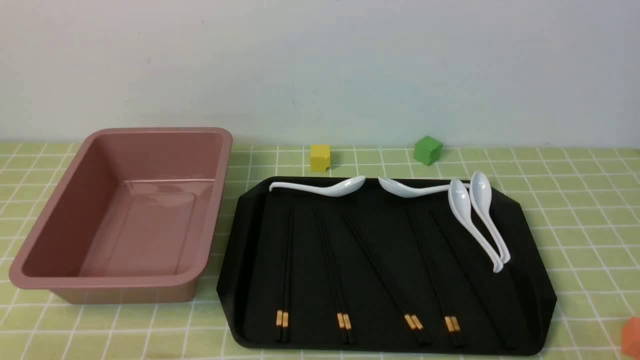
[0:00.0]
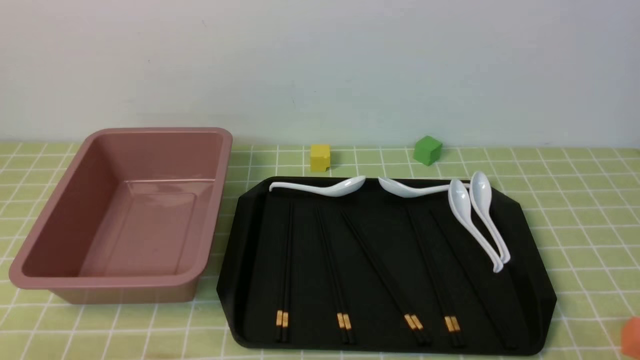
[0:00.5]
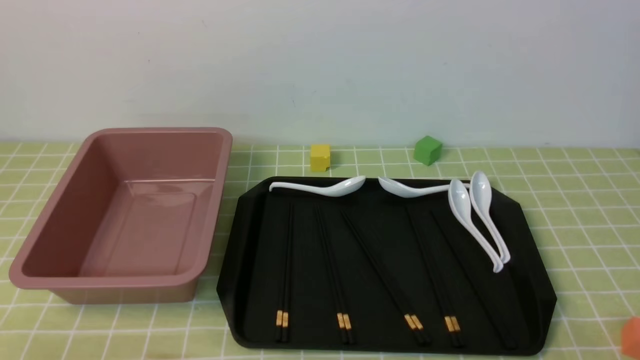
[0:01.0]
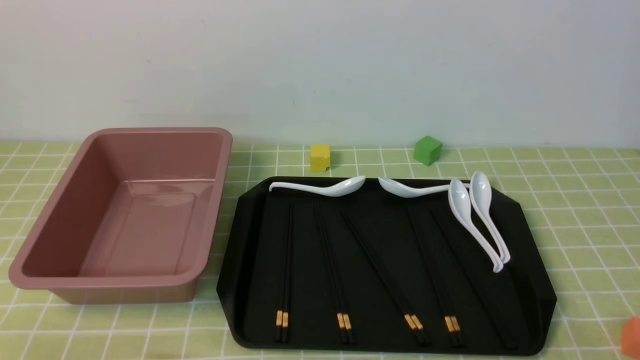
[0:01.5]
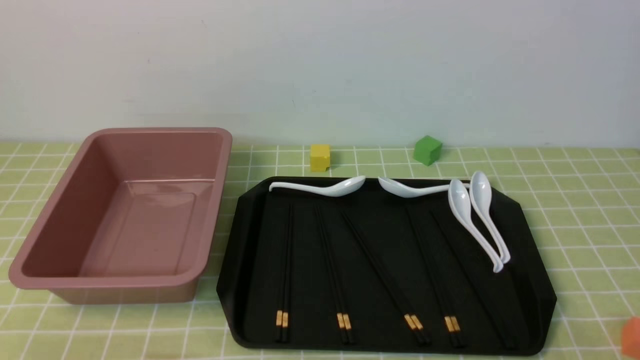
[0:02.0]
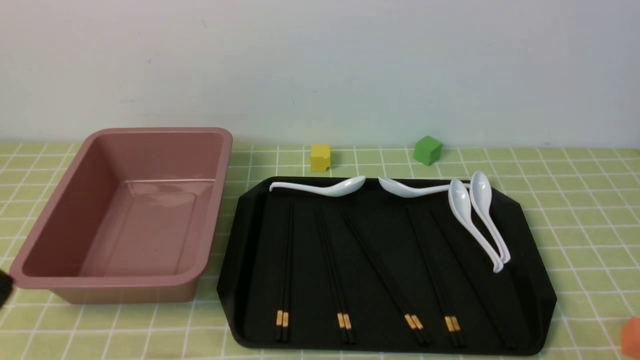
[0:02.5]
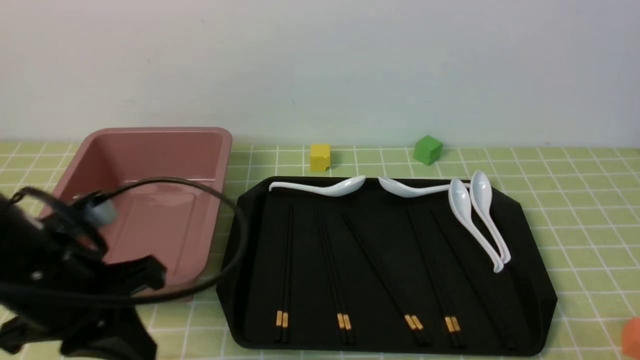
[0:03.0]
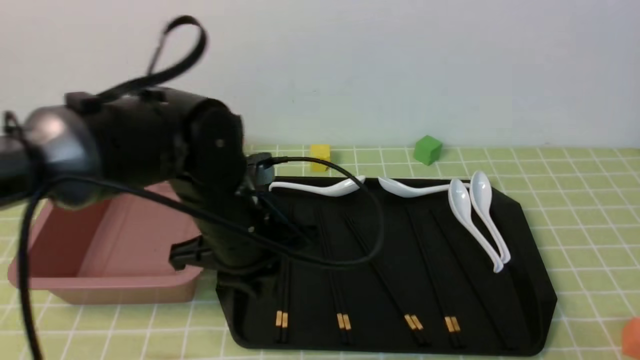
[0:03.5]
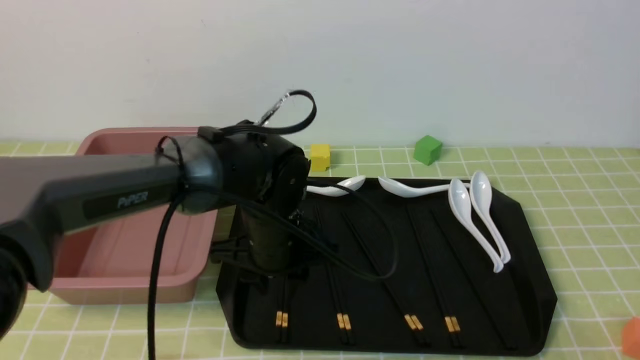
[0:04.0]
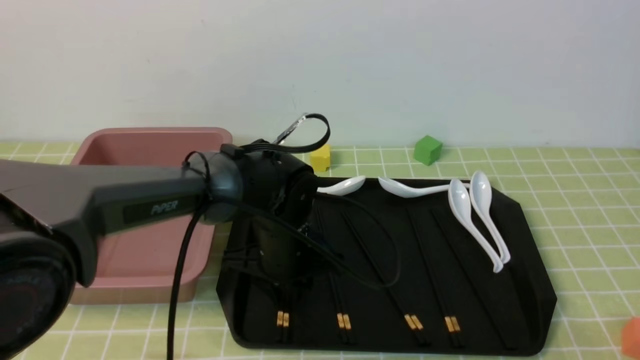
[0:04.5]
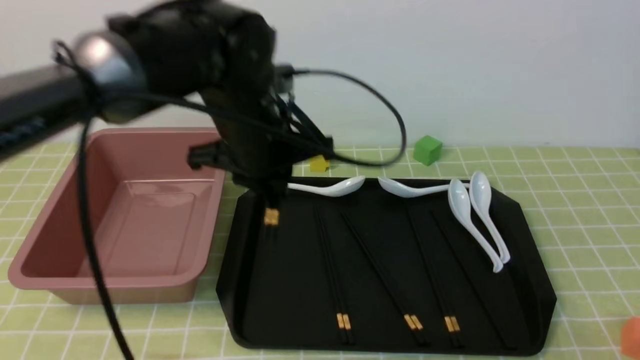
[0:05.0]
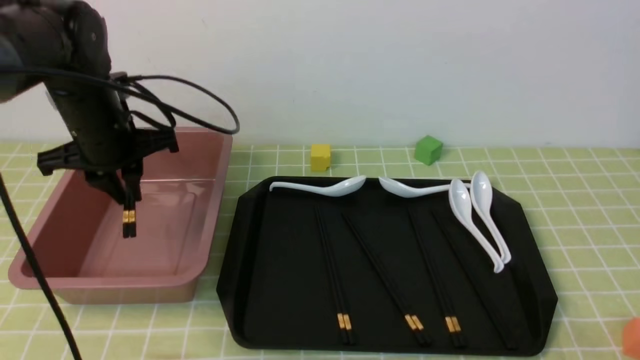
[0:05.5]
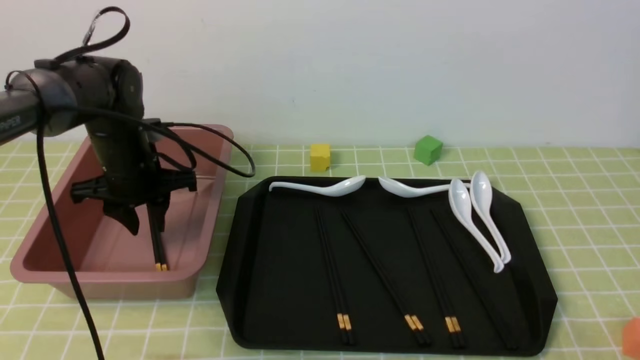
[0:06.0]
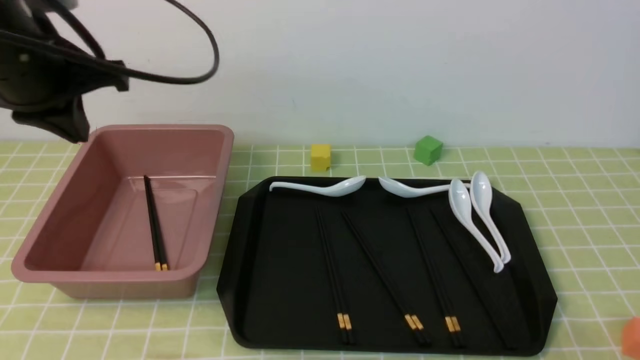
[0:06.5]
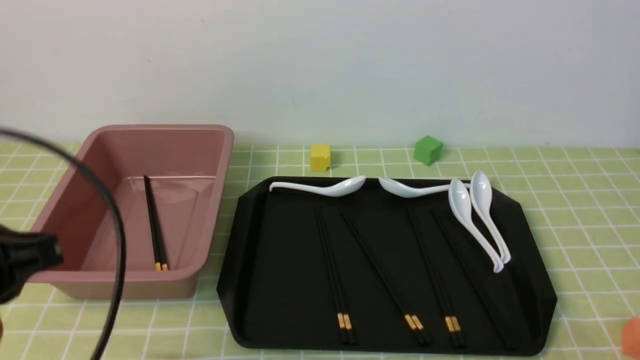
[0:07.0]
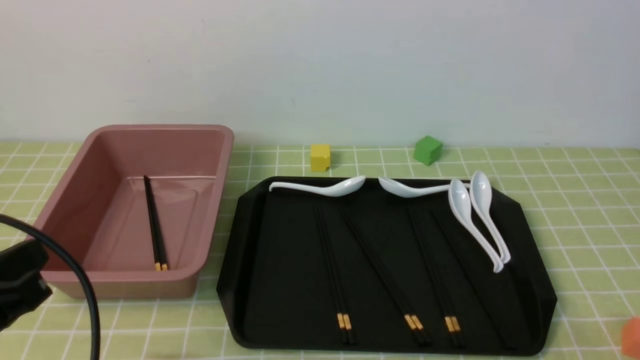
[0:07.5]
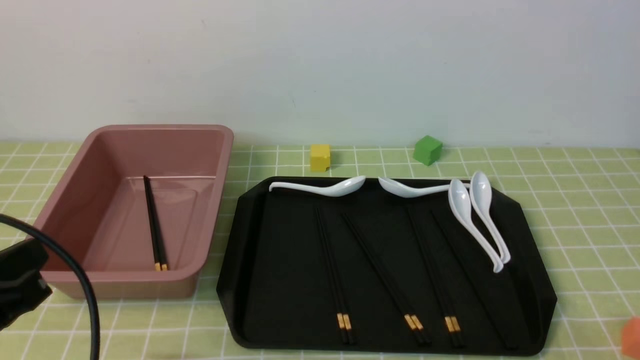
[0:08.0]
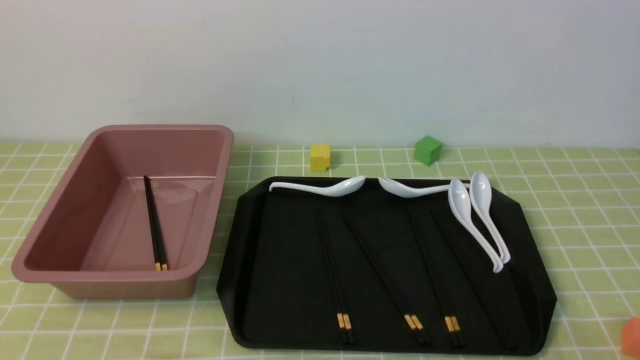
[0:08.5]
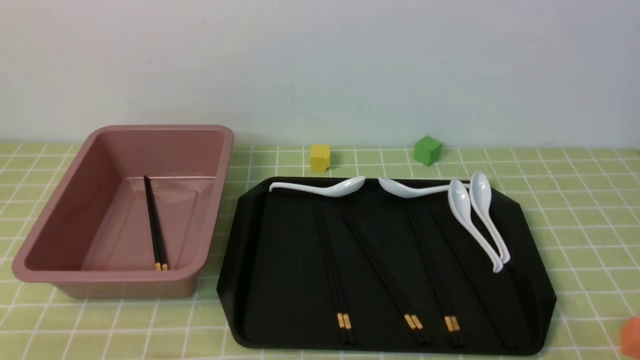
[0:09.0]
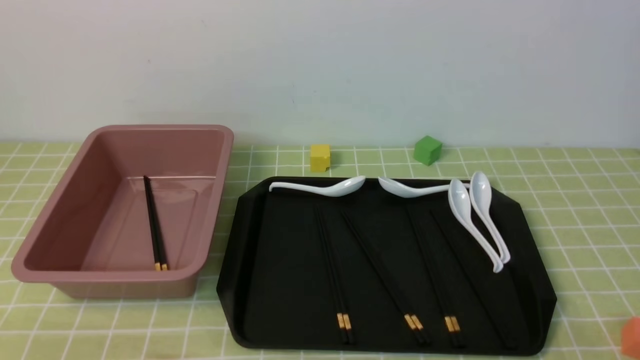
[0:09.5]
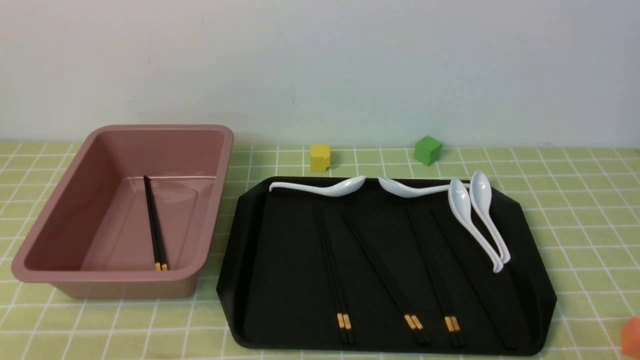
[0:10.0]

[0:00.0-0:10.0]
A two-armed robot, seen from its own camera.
Step, 0:00.0 to 0:04.5: use the left arm to grab a pair of chopsticks.
Step, 0:05.0 to 0:06.0: use the left arm to put the chopsticks into the lunch box.
0:02.0 to 0:04.0: The left gripper heads forward and to the right, covering about 35 cm, and closes, then opens again.
0:04.0 to 0:06.0: The left gripper goes approximately 20 cm to the left and forward.
0:06.0 to 0:08.0: The left gripper goes roughly 30 cm backward, and closes its fingers.
0:08.0 to 0:10.0: The left gripper shifts some 10 cm downward and backward.

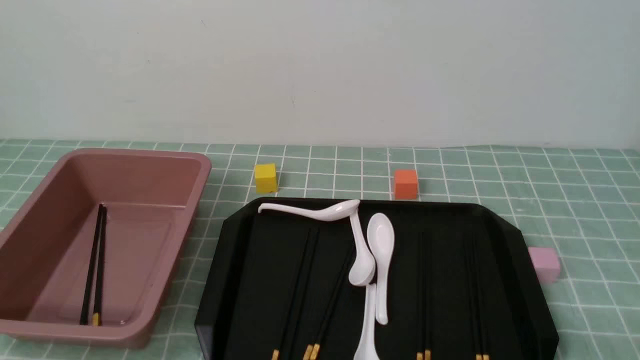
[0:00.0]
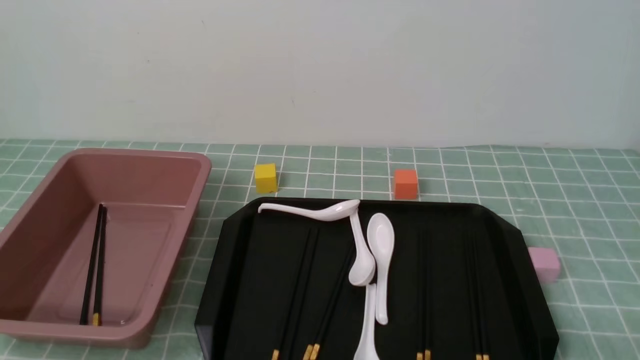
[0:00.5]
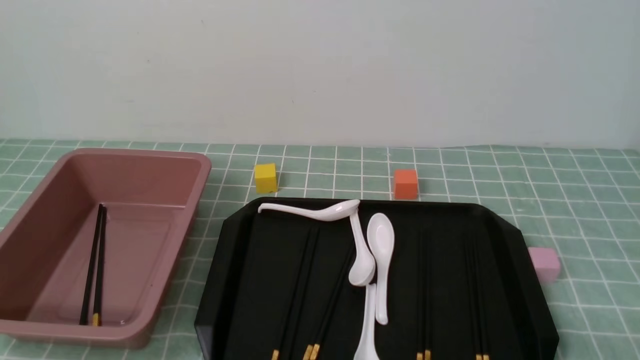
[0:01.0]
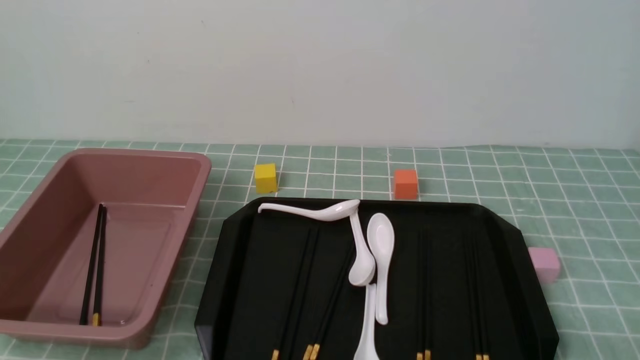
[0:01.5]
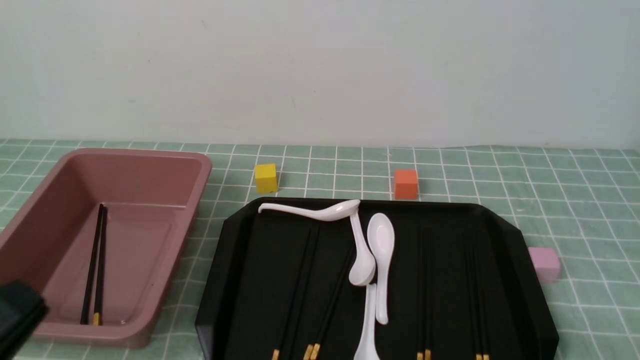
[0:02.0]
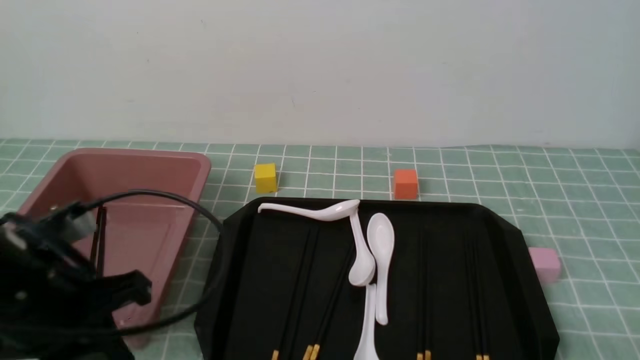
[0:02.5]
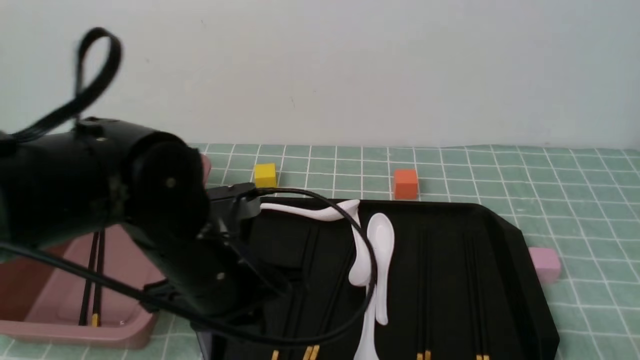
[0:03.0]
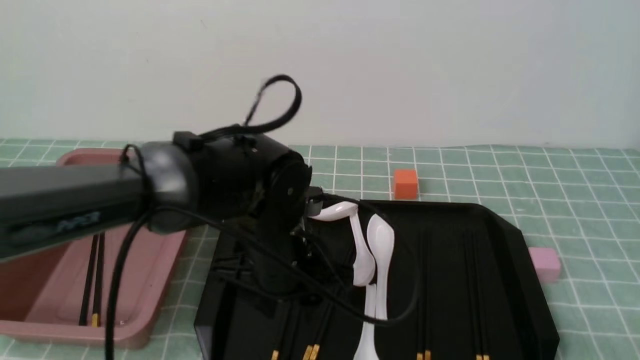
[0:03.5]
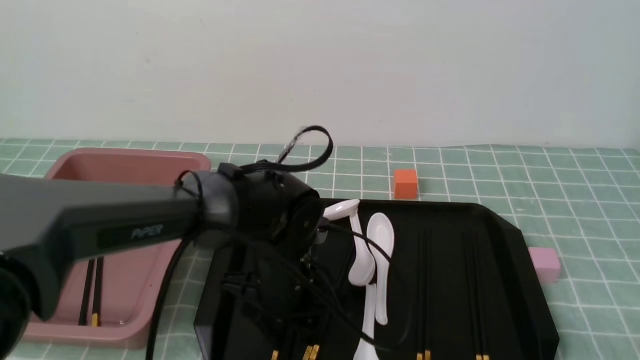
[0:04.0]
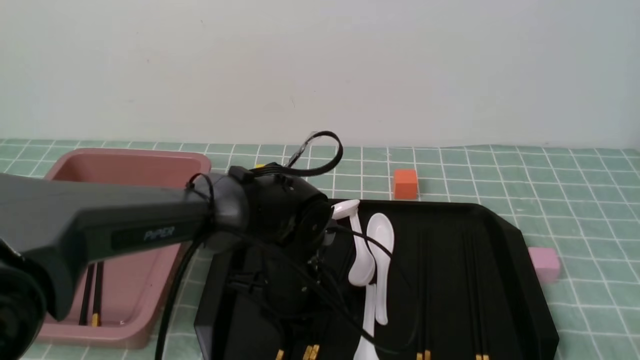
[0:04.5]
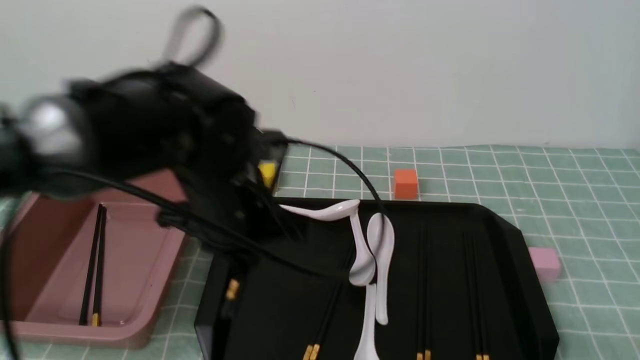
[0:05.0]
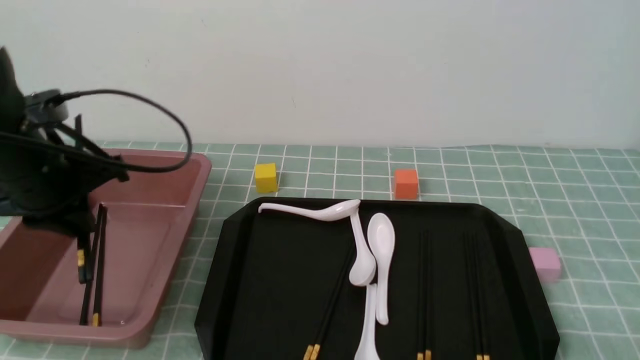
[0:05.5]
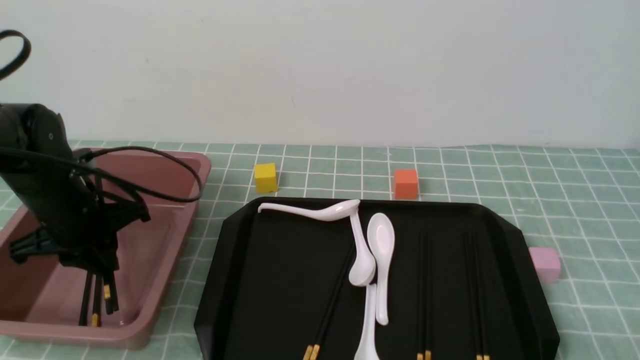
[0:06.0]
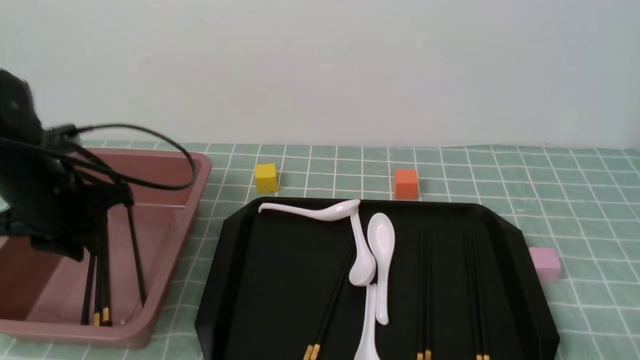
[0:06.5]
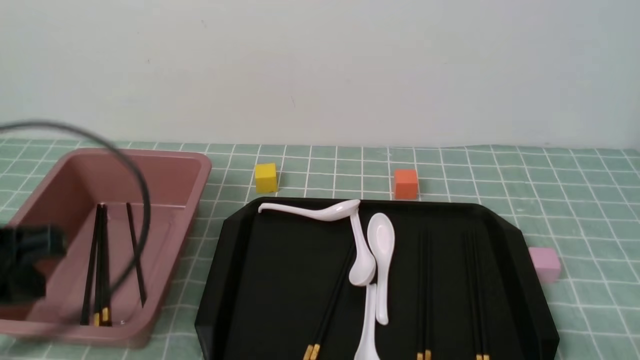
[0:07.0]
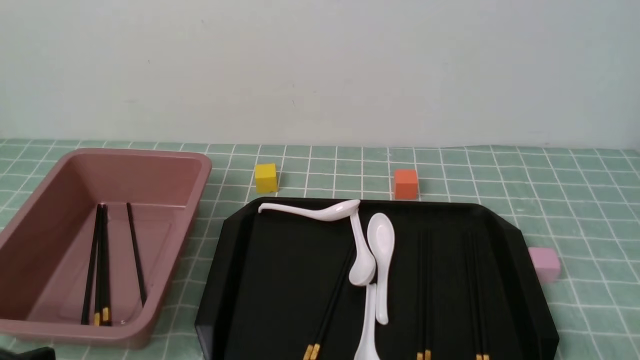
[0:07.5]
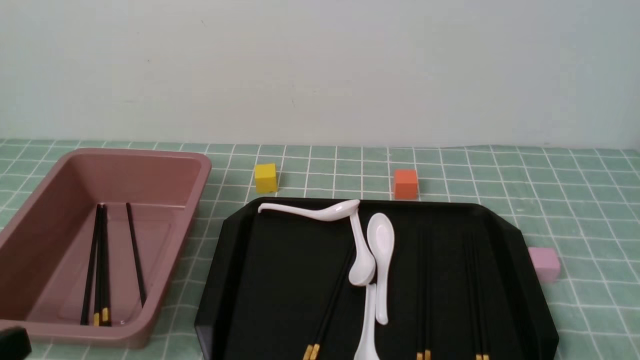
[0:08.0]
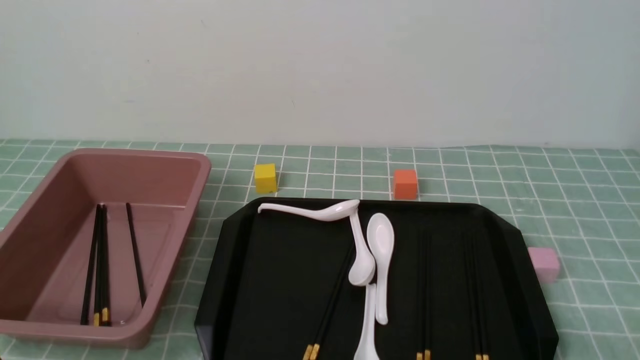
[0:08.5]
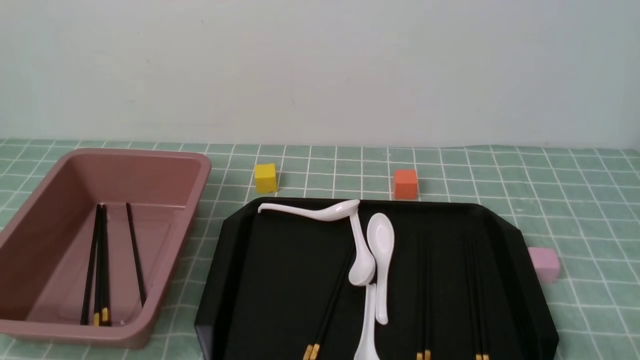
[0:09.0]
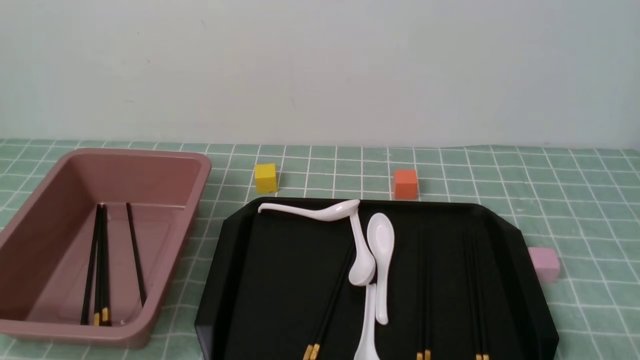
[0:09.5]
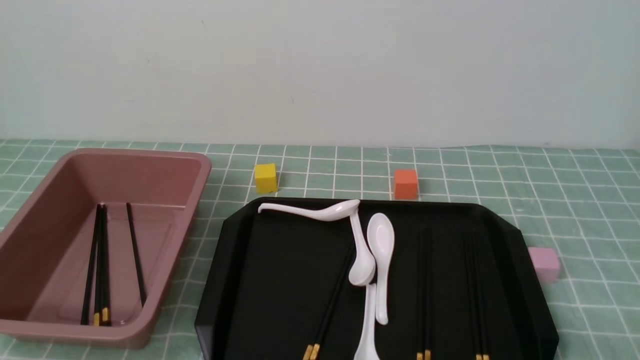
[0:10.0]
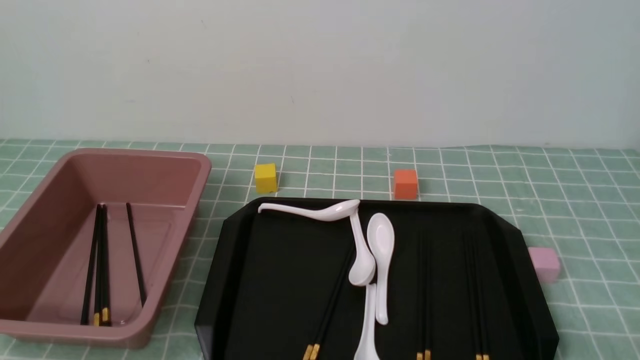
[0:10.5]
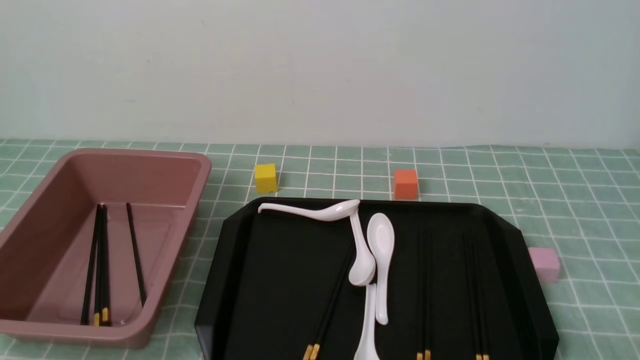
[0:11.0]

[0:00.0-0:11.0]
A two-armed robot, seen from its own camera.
Step, 0:00.0 to 0:04.5: use the left arm to grab a pair of chopsticks.
Step, 0:05.5 to 0:06.5: use the left arm to put the chopsticks into the lunch box.
0:00.0 to 0:02.0: The left gripper goes about 10 cm upward.
0:02.0 to 0:03.5: The left gripper moves forward and to the right, approximately 30 cm, and opens its fingers.
0:03.5 to 0:05.5: The left gripper travels to the left by some 20 cm, and closes up.
0:05.5 to 0:07.5: The left gripper heads backward, covering about 25 cm.
0:09.0 to 0:11.0: The two grippers keep their place.
